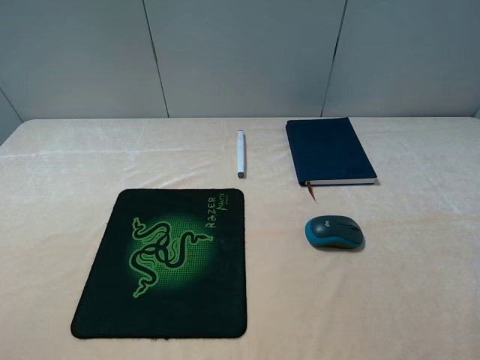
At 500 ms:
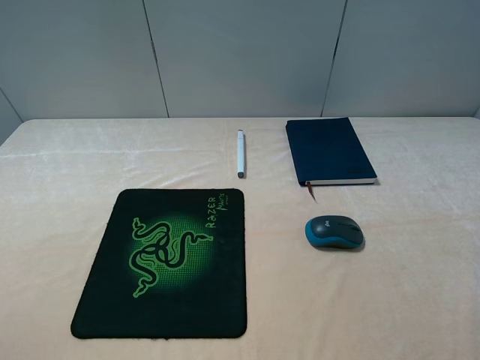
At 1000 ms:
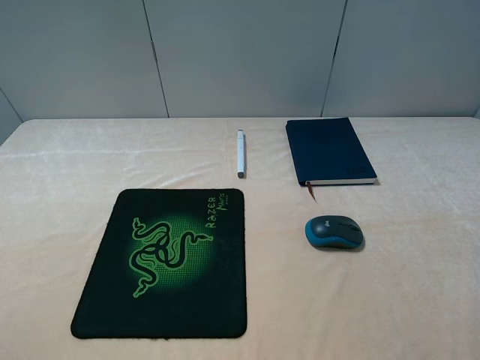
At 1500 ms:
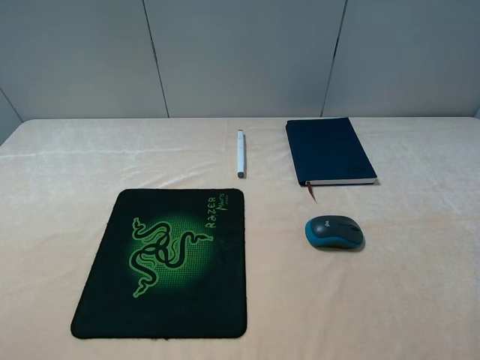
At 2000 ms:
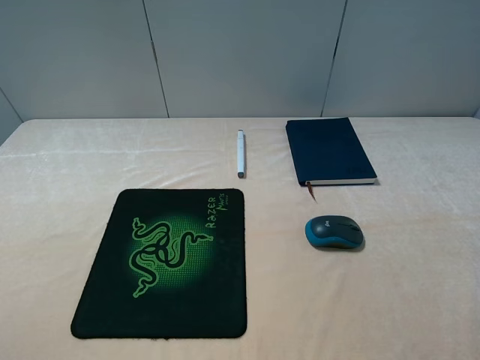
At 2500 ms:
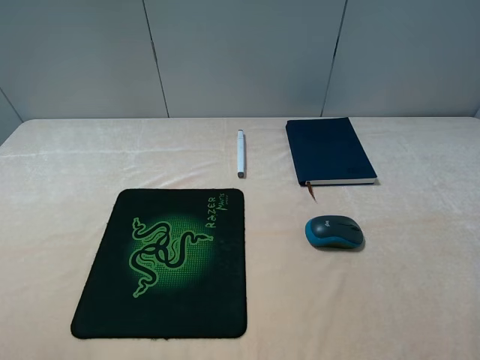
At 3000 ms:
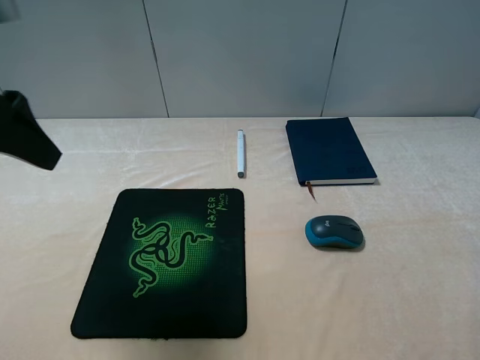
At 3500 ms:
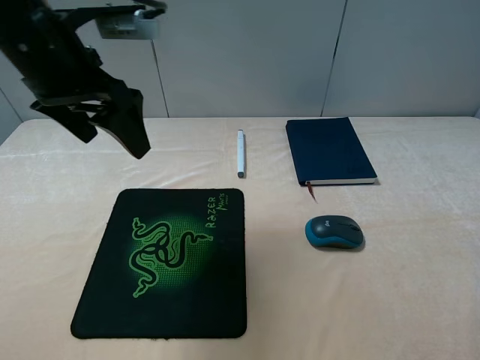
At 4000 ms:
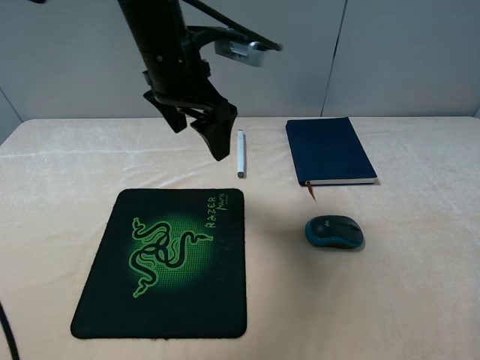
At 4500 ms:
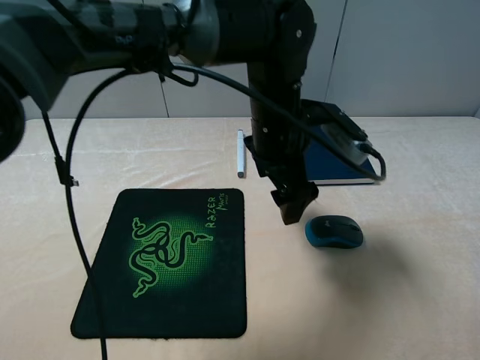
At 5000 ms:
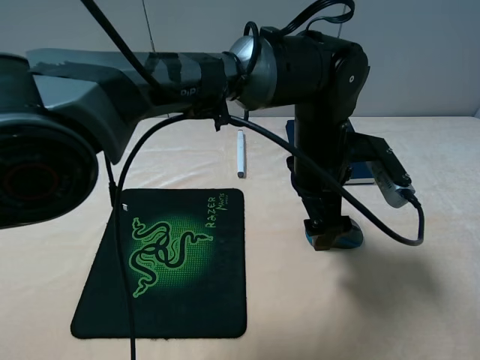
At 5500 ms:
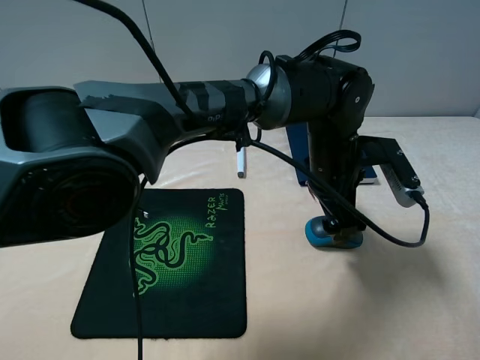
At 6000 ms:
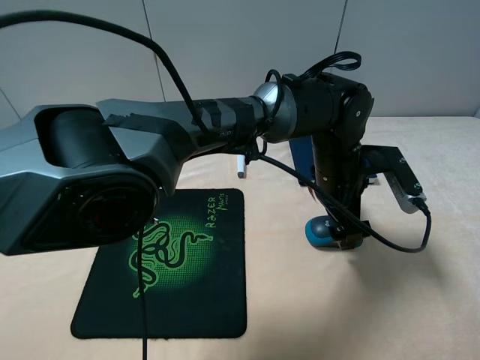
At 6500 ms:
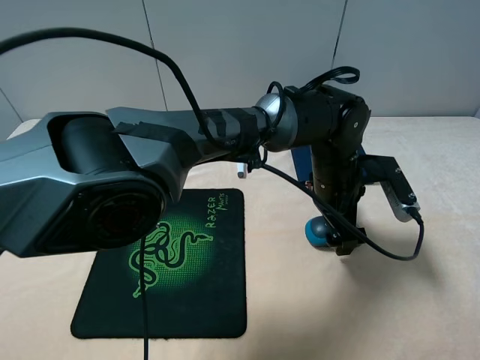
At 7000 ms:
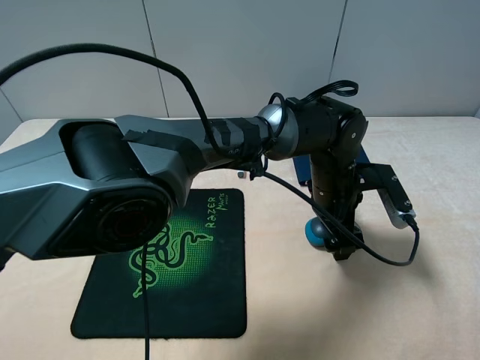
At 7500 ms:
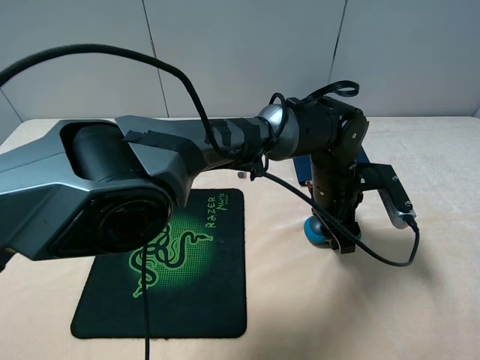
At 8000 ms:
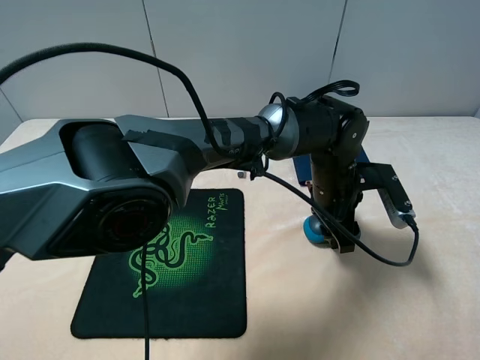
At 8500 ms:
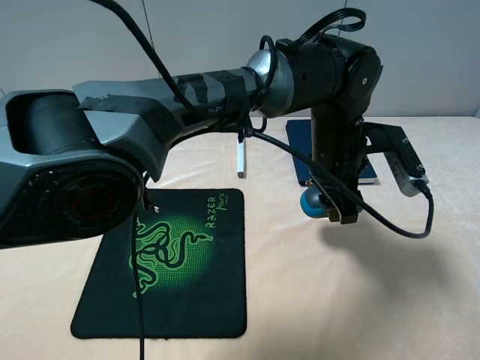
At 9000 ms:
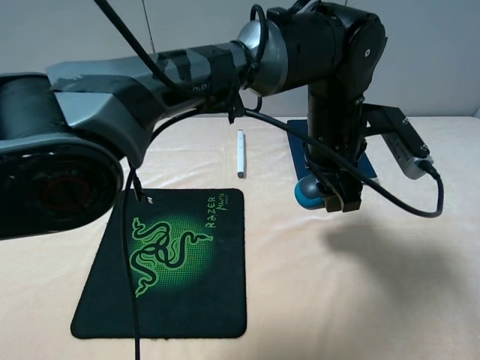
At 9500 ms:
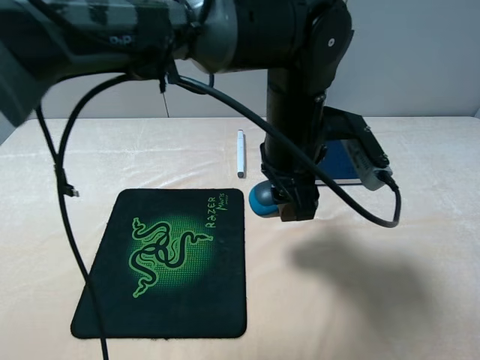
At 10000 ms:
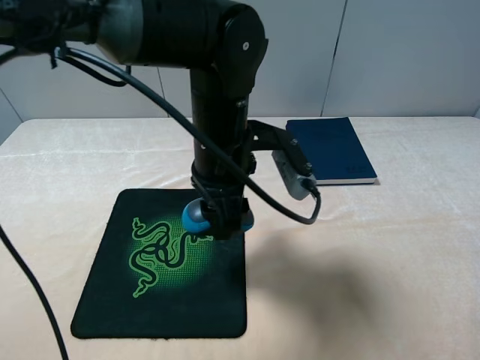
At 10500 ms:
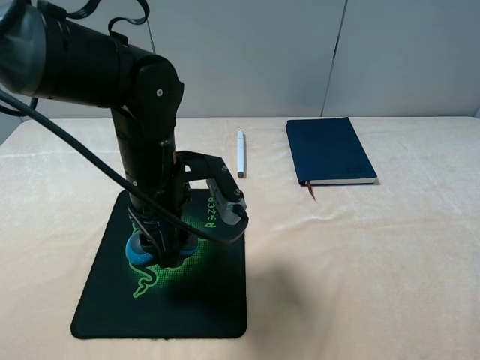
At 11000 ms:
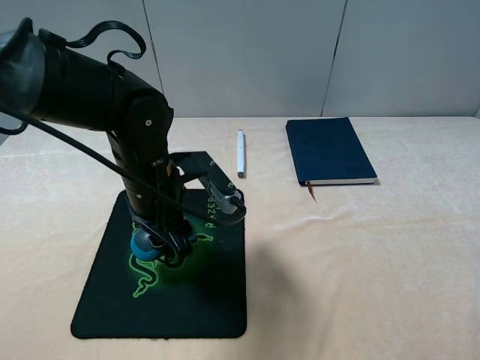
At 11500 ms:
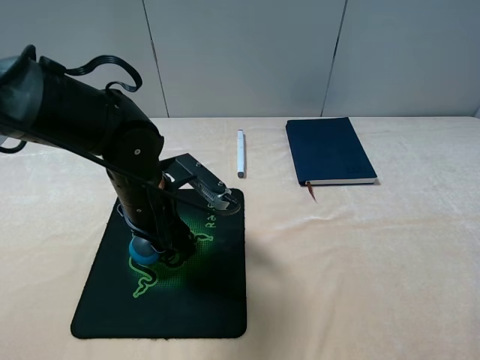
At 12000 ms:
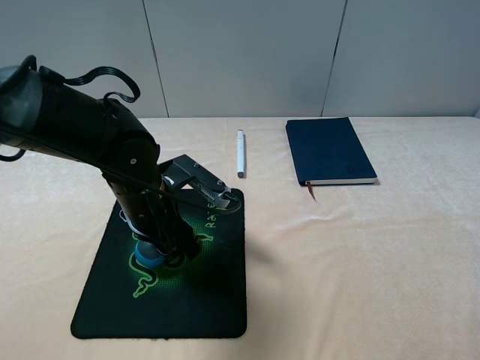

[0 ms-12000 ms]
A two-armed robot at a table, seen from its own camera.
Step, 0 ms to 7500 ms: Grasp the mouse with the left gripper.
2000 ms to 4000 ms: The left gripper is displaced forward and to the right by approximately 40 cm.
4000 ms to 6000 ms: The left gripper is displaced to the right and downward by about 25 cm.
6000 ms to 8000 ms: The left gripper closes up.
8000 ms to 10000 ms: The left gripper travels to the left and upward by approximately 20 cm.
10000 ms to 12000 ms: The left gripper is displaced to the left and downward by about 10 cm.

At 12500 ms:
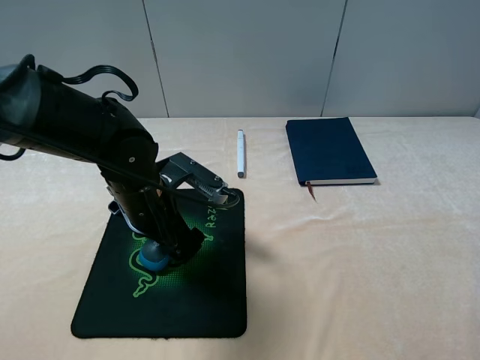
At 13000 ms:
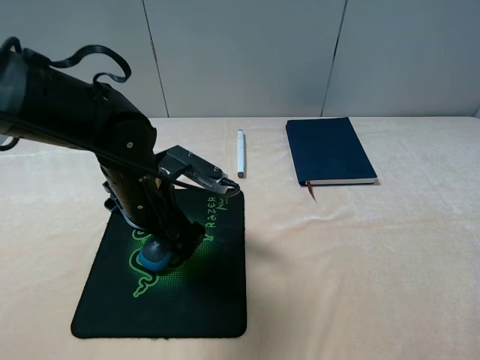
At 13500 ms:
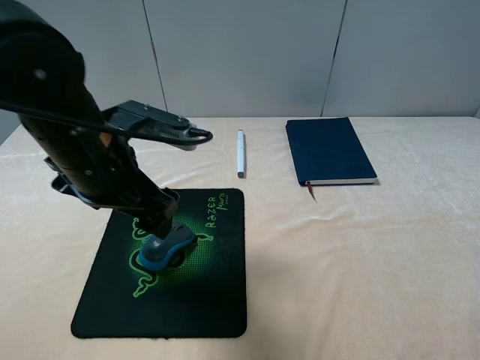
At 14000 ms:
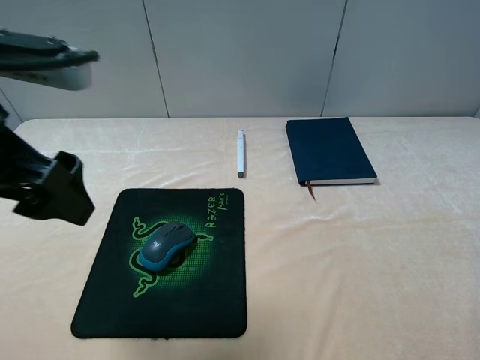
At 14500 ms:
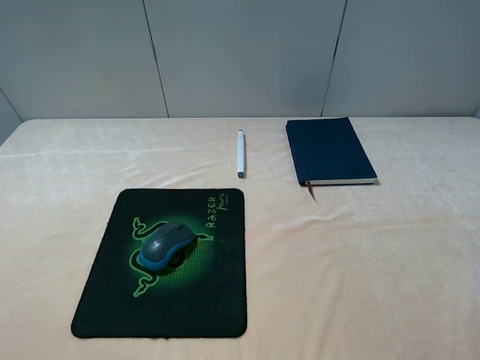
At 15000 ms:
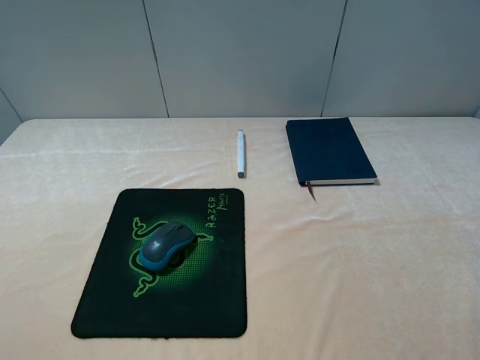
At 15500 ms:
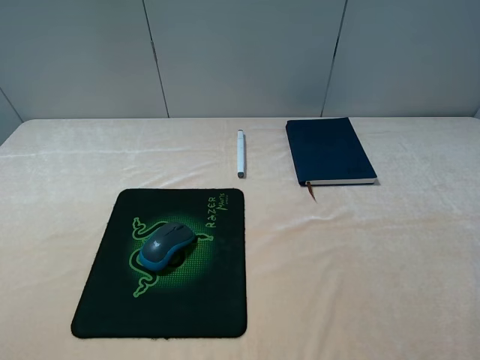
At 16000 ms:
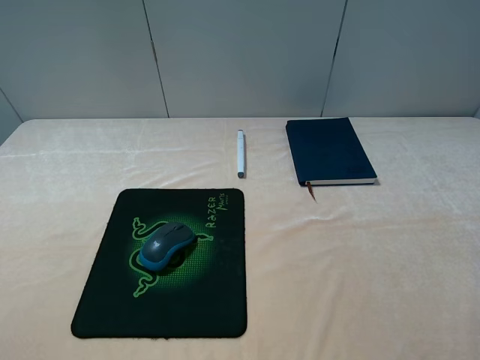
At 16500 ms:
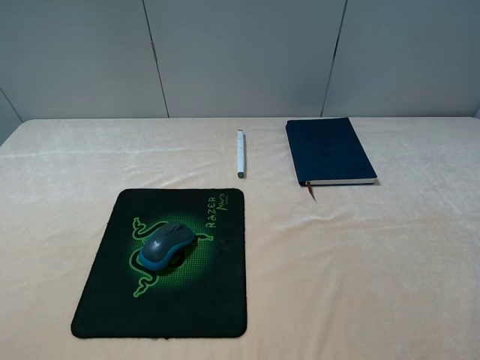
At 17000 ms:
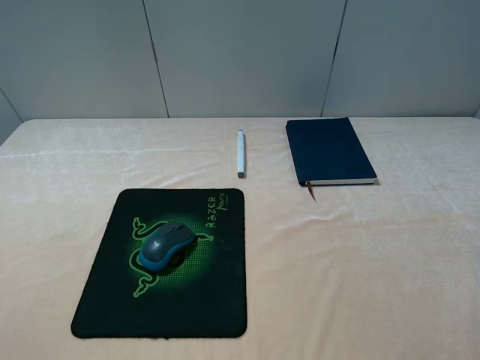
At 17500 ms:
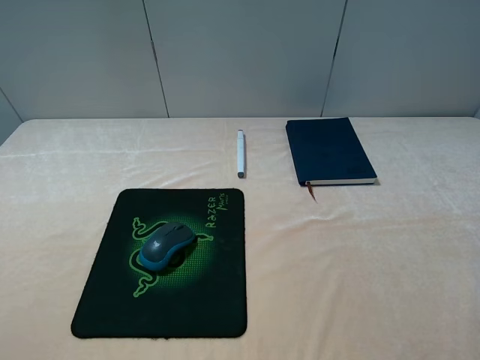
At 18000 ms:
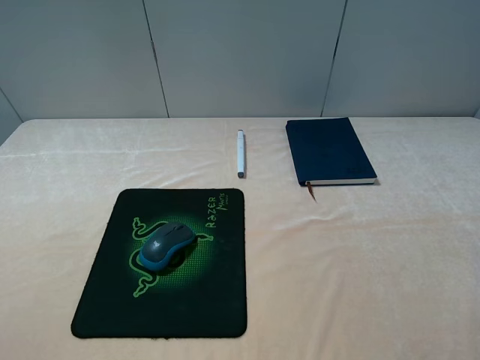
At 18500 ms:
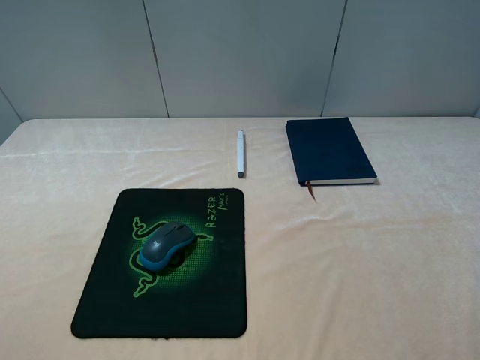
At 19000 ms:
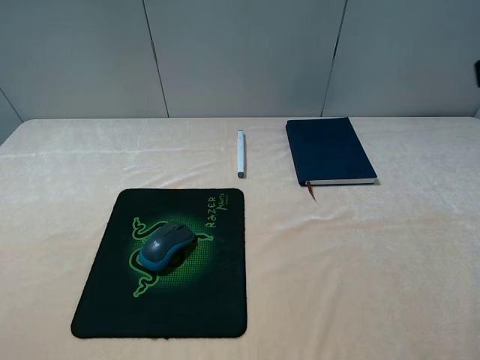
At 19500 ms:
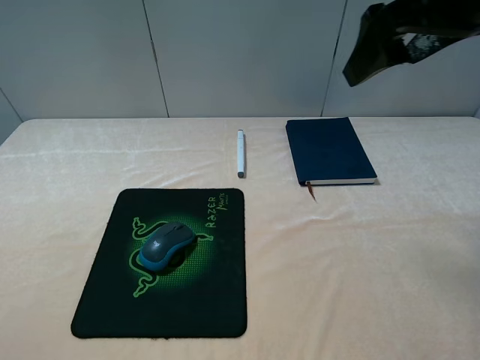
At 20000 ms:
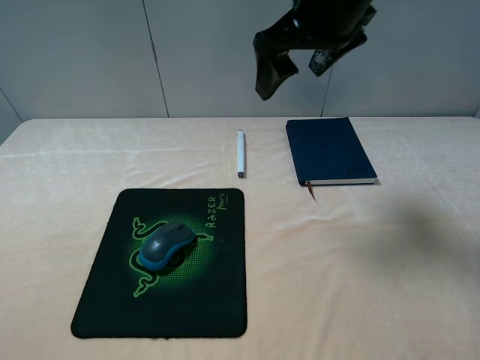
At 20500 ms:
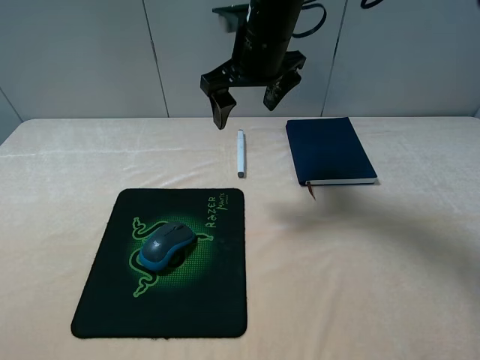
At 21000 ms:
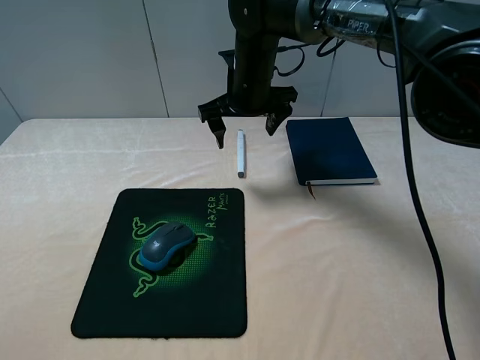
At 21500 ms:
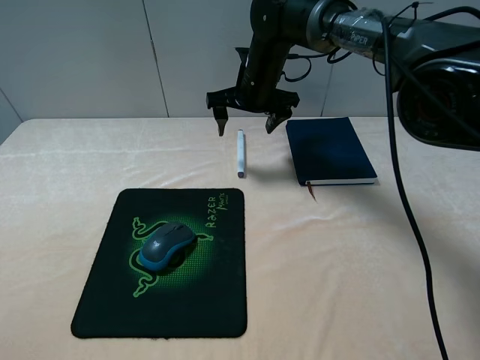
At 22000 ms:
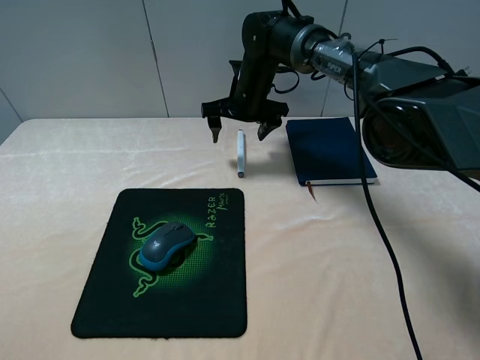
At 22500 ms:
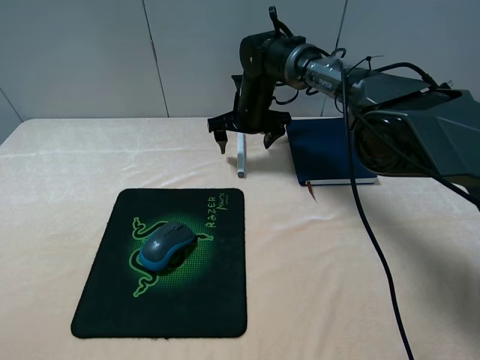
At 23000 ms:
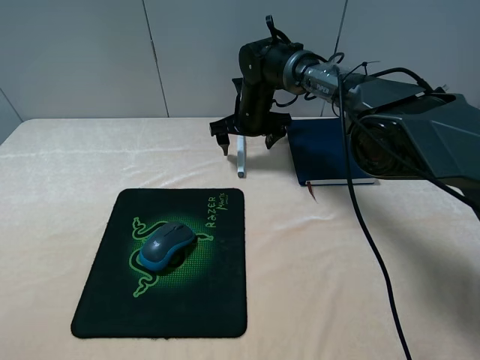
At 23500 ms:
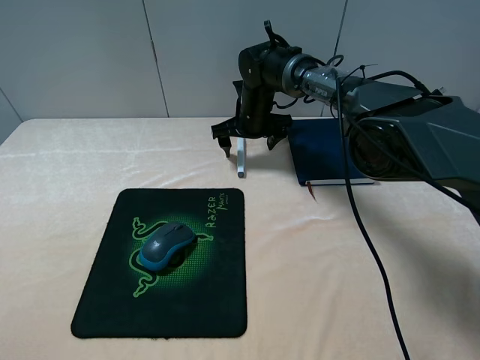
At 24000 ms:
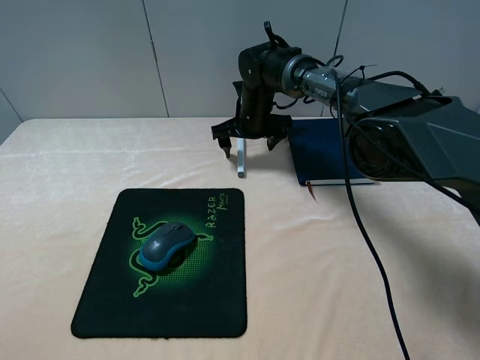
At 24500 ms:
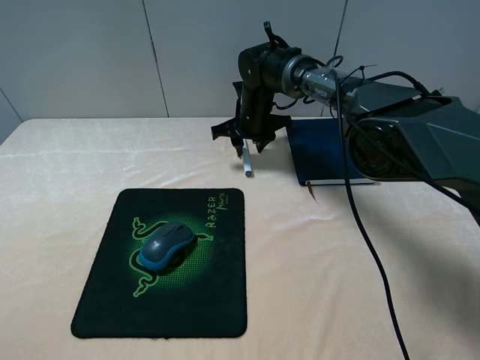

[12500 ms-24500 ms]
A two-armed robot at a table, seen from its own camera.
12500 ms to 14500 ms: The left gripper travels upward, backward and to the left by approximately 35 cm.
18500 ms to 20500 ms: The right gripper is displaced forward and to the left by approximately 40 cm.
20500 ms to 22500 ms: The right gripper is displaced downward and forward by roughly 15 cm.
22500 ms to 24500 ms: The right gripper closes.

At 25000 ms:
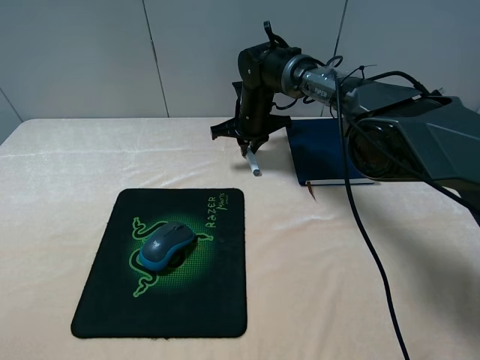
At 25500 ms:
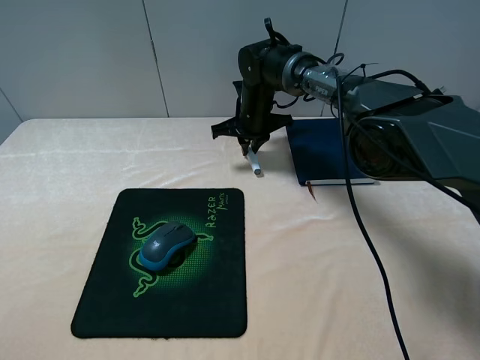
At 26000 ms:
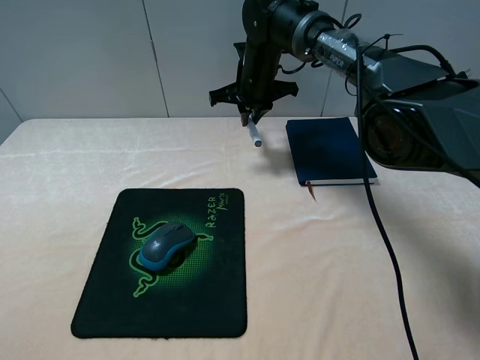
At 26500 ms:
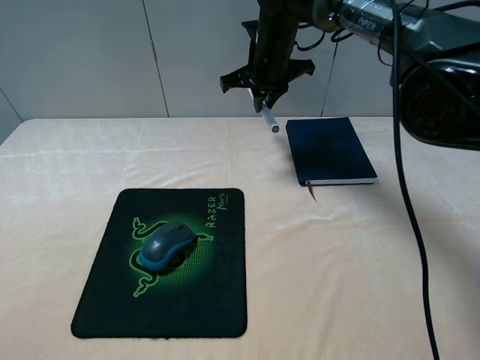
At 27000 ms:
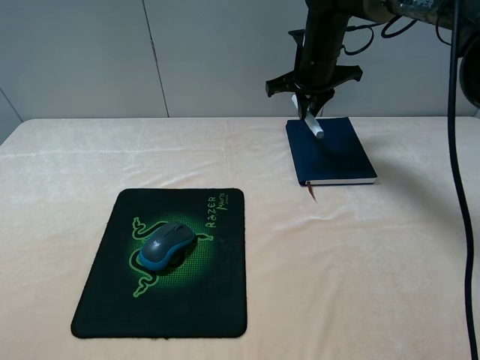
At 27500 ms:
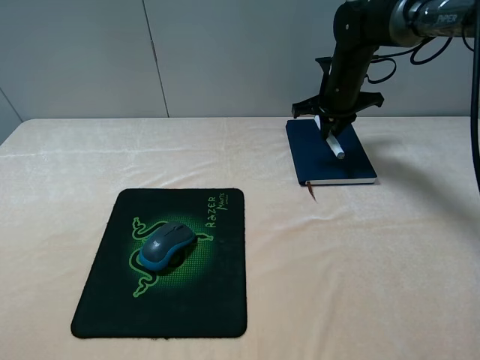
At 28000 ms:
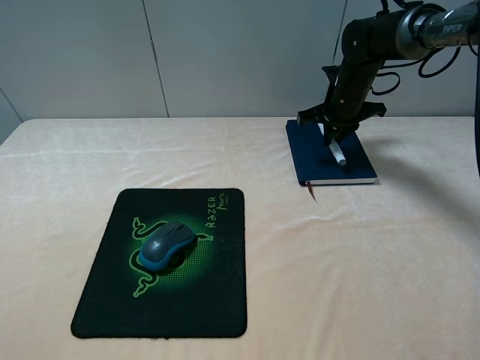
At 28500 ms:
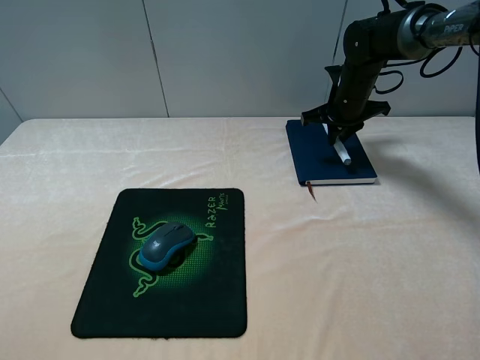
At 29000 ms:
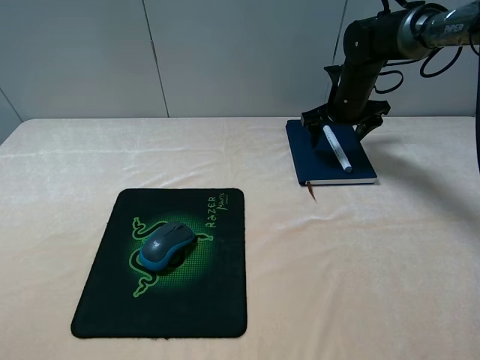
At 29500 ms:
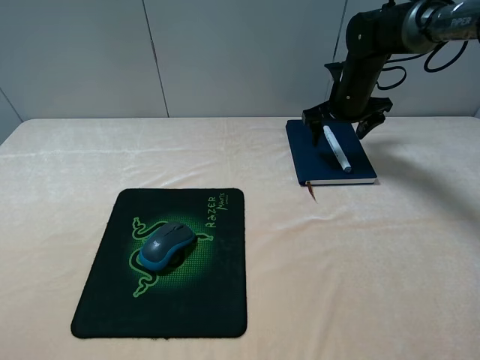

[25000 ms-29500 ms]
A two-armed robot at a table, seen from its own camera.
Step, 25500 ms to 29000 ms: Place the marker on the notebook with the right gripper.
25000 ms to 27000 ms: The right gripper moves upward and to the right, approximately 15 cm.
27000 ms to 29500 ms: The right gripper moves to the right and downward, approximately 10 cm, and opens its fingers.
